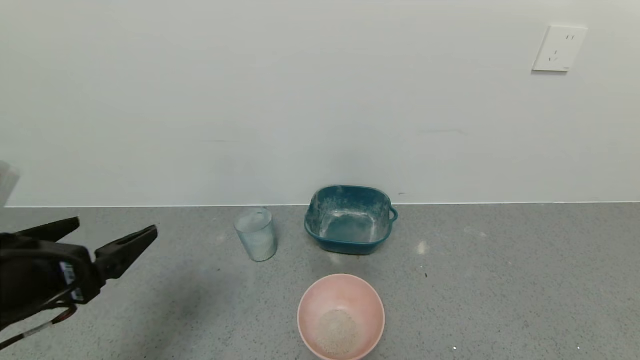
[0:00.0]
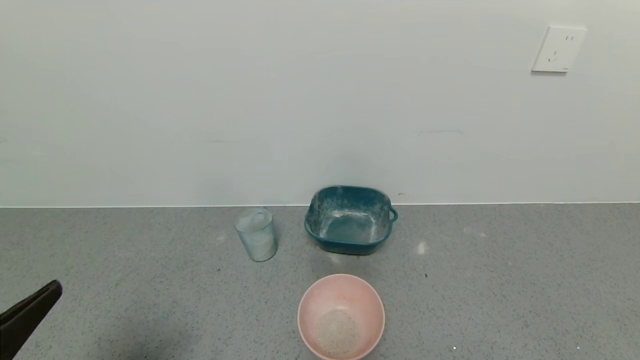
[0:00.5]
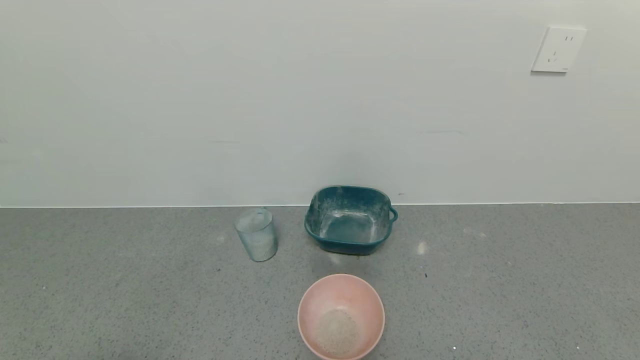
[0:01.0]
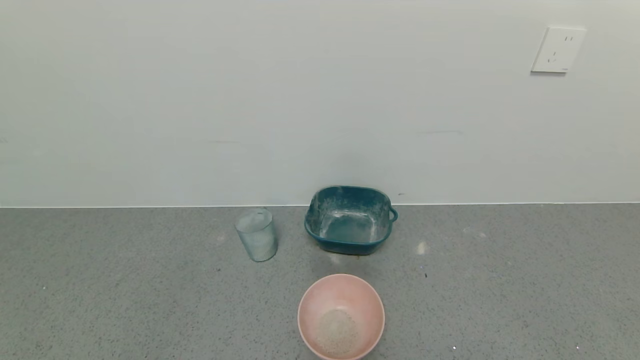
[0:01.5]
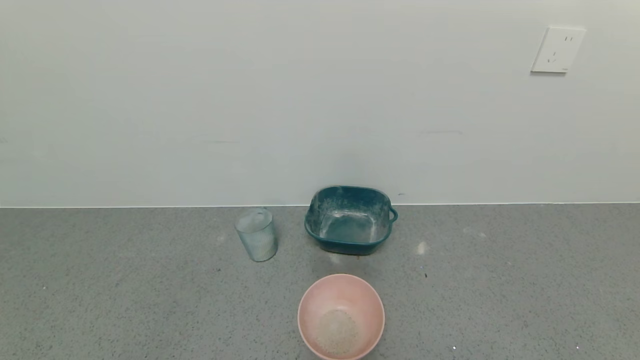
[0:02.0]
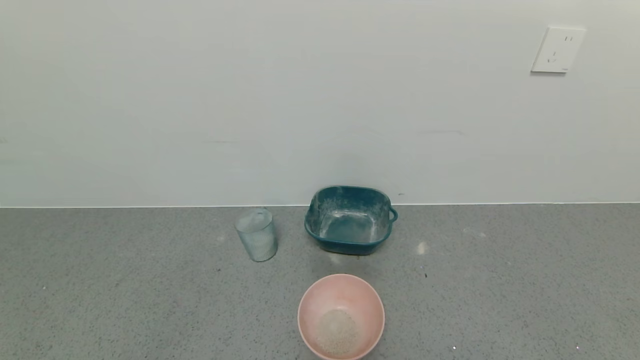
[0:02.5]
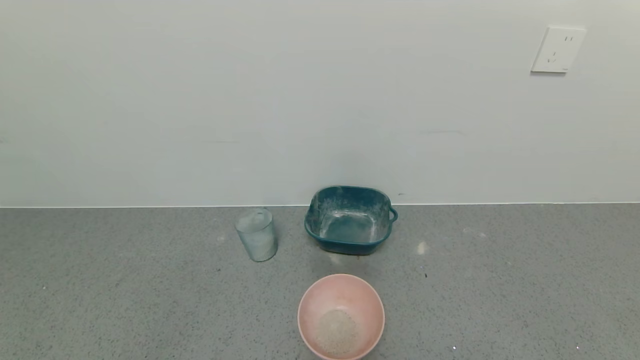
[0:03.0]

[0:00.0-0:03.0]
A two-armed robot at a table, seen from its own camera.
Task of the whole recording: use a gripper to pick up the cup and pour the powder into a bowl or tray.
0:00.0 to 0:01.5: The left gripper is displaced backward by approximately 15 cm.
